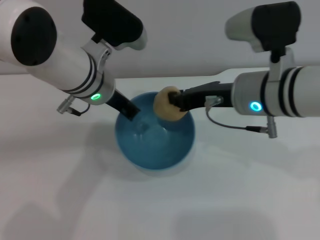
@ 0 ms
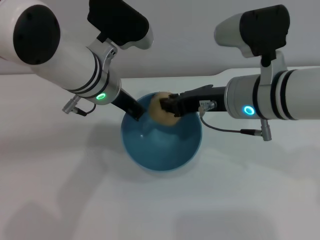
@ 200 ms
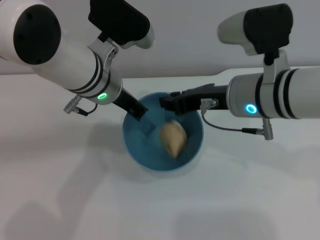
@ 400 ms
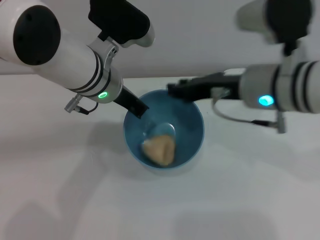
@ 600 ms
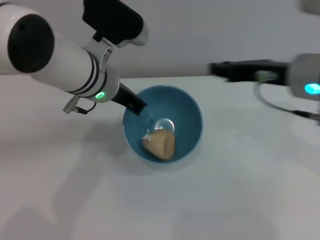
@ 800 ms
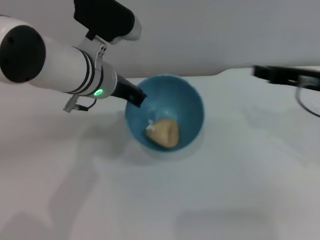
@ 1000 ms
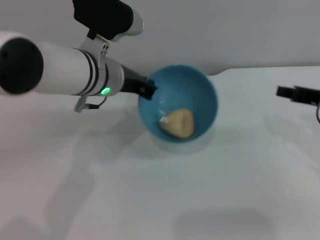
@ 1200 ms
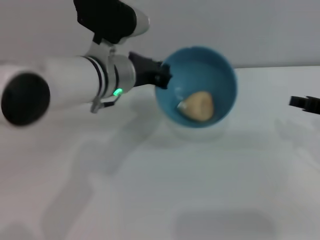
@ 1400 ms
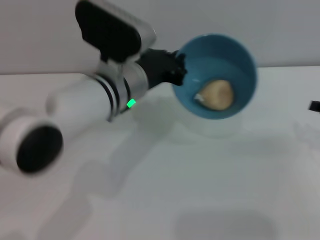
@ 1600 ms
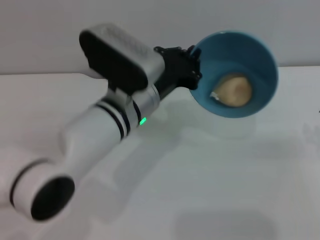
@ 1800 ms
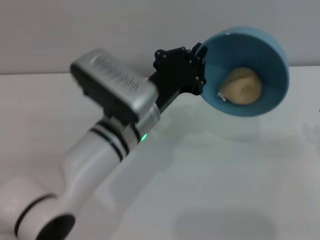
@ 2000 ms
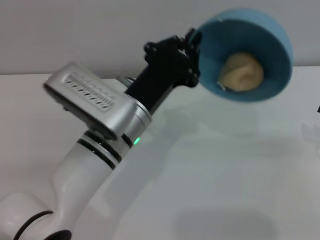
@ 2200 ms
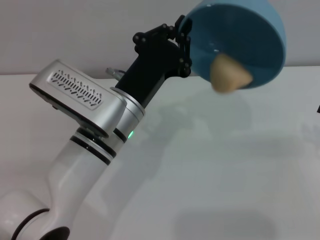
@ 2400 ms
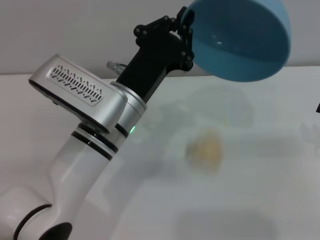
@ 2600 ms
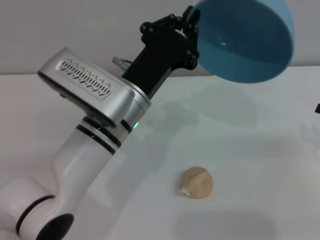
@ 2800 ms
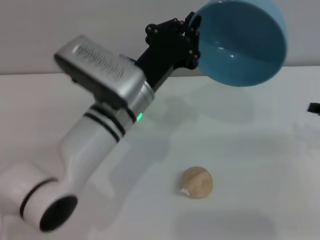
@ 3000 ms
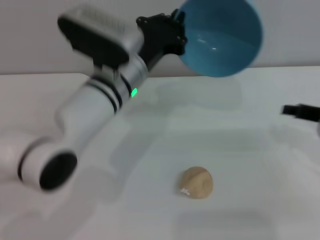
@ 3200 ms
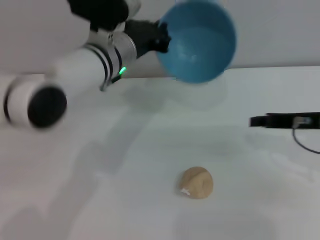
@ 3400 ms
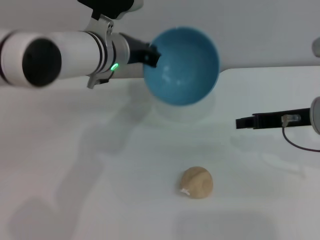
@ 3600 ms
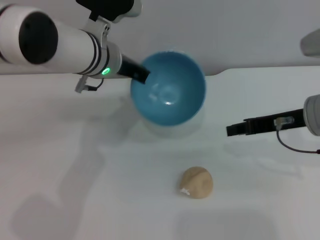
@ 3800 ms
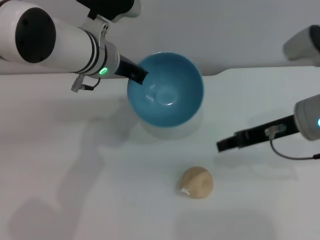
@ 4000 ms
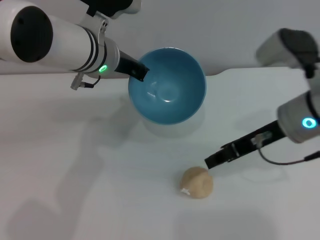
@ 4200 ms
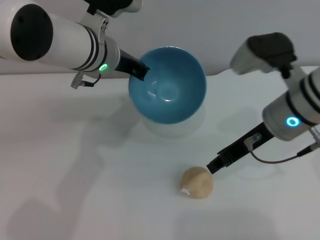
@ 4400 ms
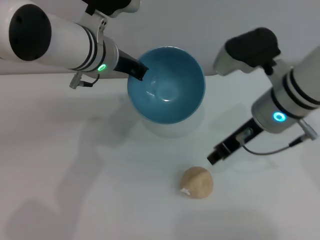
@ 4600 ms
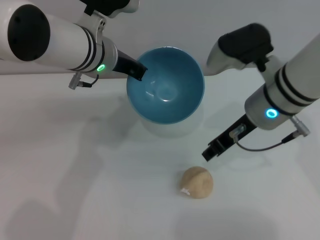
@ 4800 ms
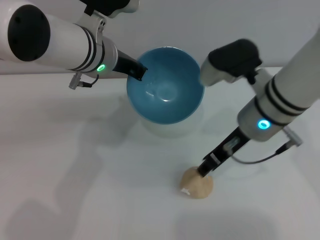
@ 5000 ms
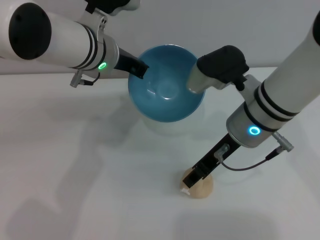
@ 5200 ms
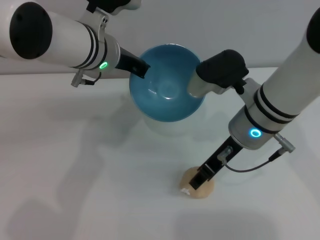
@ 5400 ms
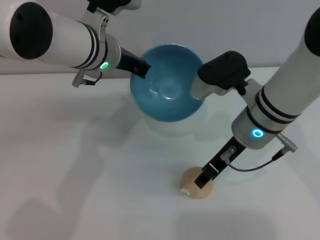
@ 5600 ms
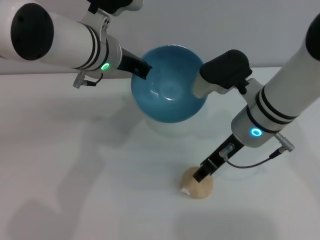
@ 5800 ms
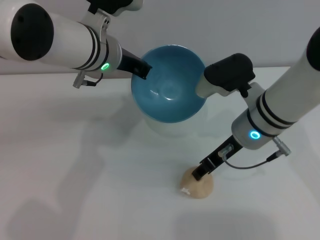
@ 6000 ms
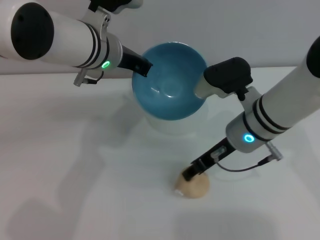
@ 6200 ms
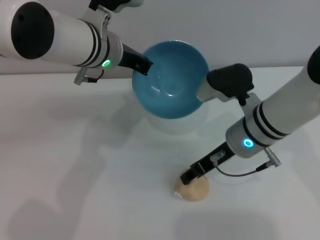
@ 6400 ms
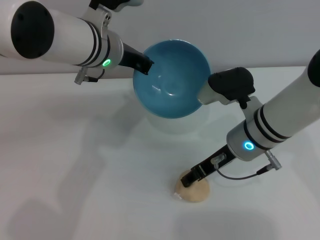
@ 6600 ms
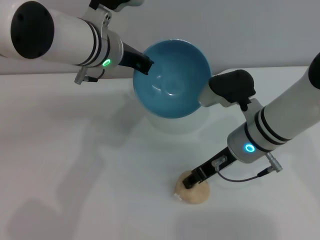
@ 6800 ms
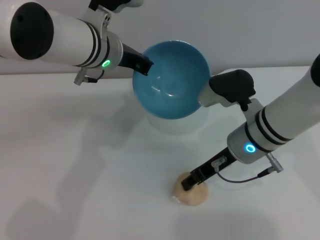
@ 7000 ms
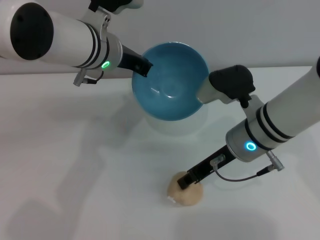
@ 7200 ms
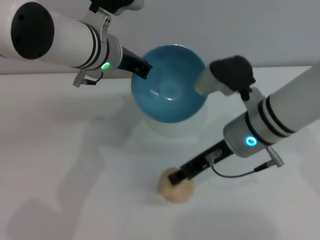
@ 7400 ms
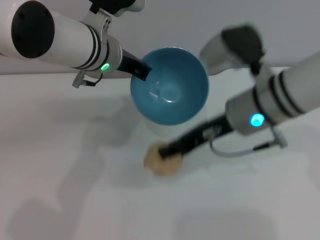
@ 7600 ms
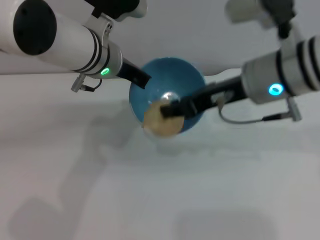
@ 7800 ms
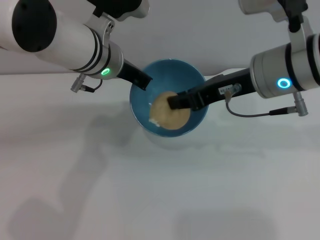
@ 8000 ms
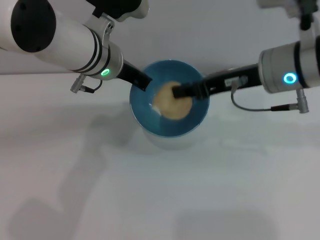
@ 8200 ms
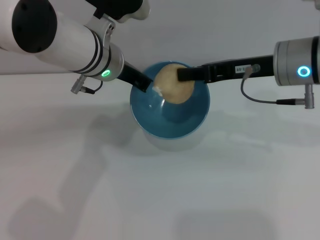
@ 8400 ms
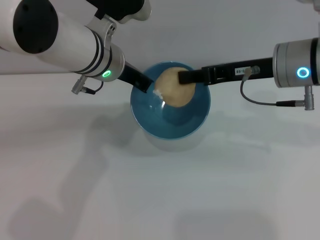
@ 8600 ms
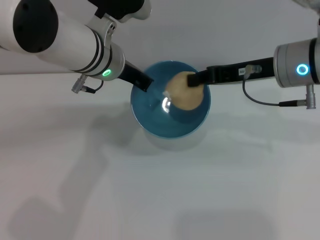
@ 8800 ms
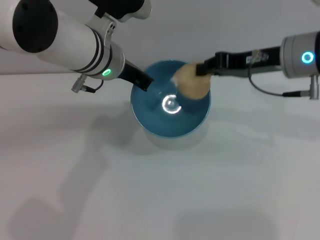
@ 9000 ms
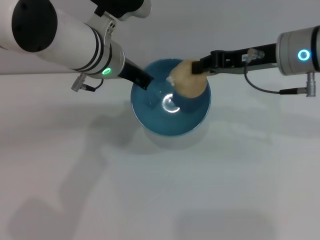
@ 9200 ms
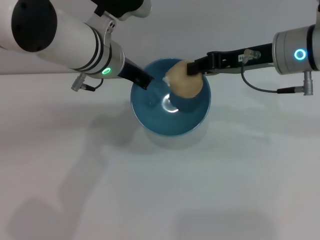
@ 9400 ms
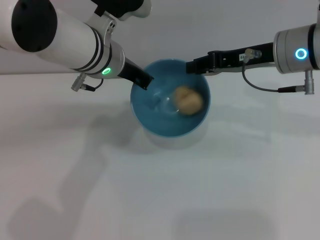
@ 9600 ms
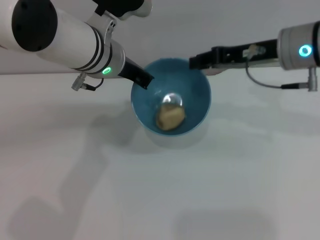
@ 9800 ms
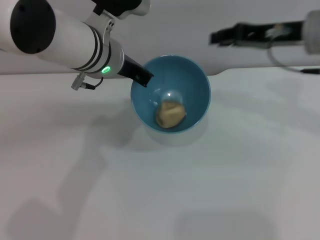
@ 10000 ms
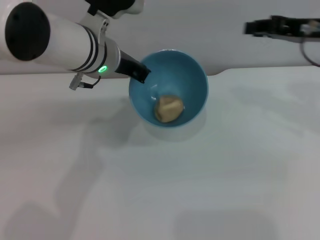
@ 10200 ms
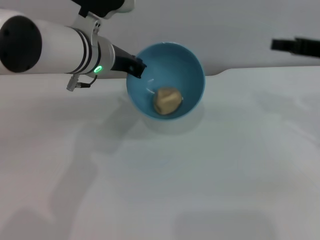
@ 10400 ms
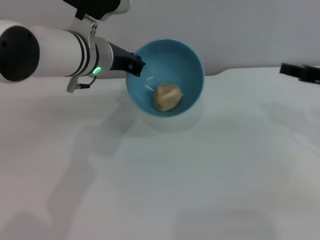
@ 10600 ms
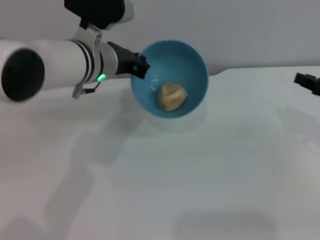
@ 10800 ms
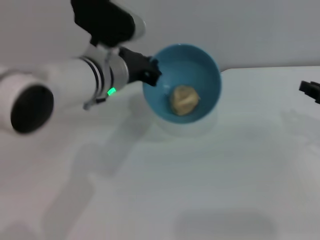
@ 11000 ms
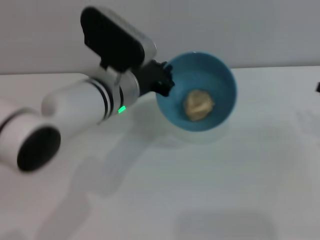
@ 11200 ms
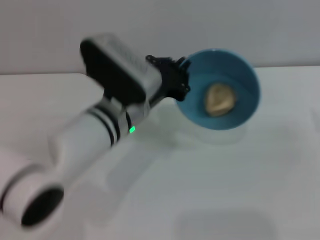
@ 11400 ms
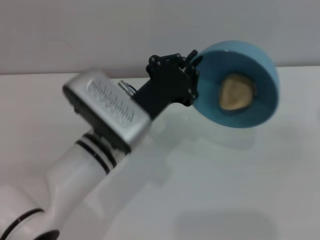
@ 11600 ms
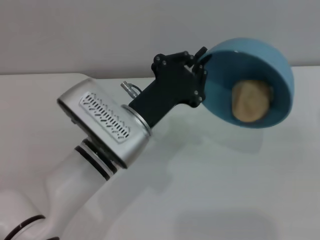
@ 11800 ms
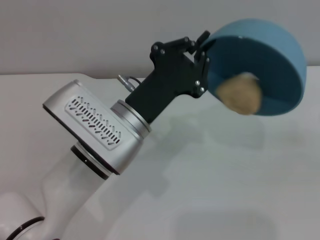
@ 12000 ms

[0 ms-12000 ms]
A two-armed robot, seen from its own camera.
Task of the whole recording: put the egg yolk pastry into the blue bowl and pour it out repeatedly.
Step, 0 ms to 600 ms: Place the egg yolk pastry into the bowl.
Step, 800 ms to 3200 ms: Pour the egg yolk pastry out of bowl.
Step, 3600 ms to 7600 ms: Pick up the egg yolk pastry with the right gripper.
Step, 7800 ms to 10000 ms: Place the egg yolk pastry into the bowl.
0 ms to 1600 ms: The right gripper travels to the right by approximately 20 cm, and opens up.
3000 ms to 4400 ms: The right gripper travels to the left by some 15 cm. The left gripper goes about 10 cm forward and upward.
4400 ms to 6000 ms: The right gripper moves roughly 5 cm, and opens.
6000 ms to 7600 ms: The right gripper travels upward by about 5 cm, and closes up.
7600 ms to 9000 ms: The right gripper shifts about 5 cm to the right, and closes up.
9000 ms to 10400 ms: The right gripper travels to the right by roughly 10 cm, and opens up.
10400 ms to 12000 ms: The left gripper travels backward and downward by some 15 cm; the right gripper goes approximately 15 cm downward, to the right and backward.

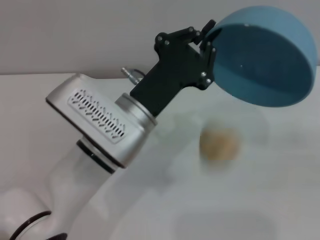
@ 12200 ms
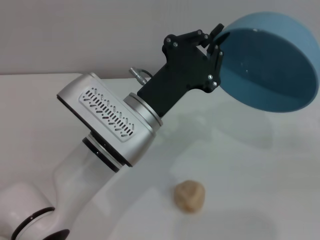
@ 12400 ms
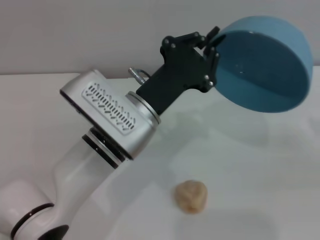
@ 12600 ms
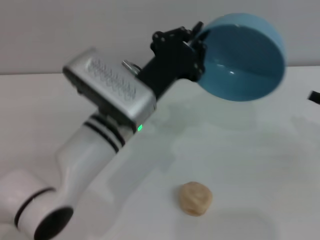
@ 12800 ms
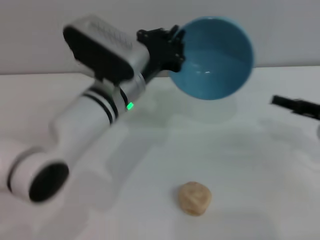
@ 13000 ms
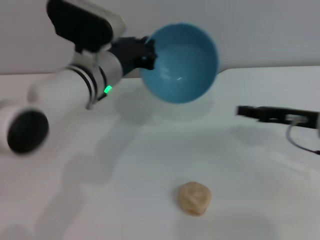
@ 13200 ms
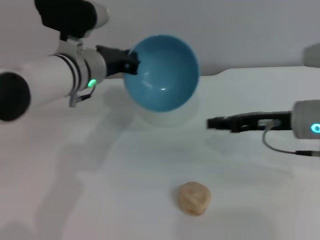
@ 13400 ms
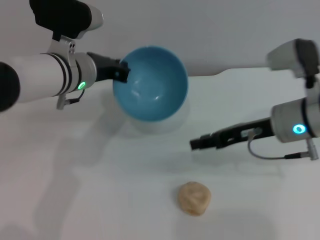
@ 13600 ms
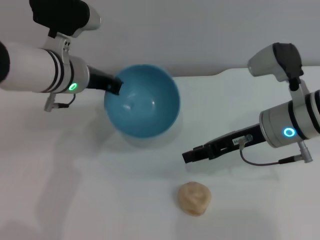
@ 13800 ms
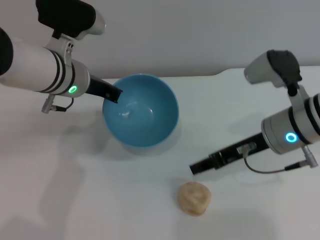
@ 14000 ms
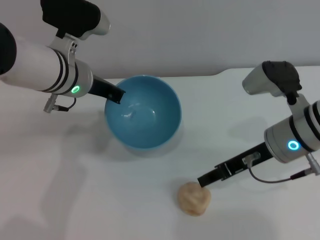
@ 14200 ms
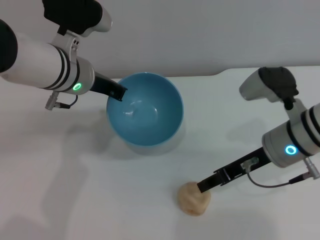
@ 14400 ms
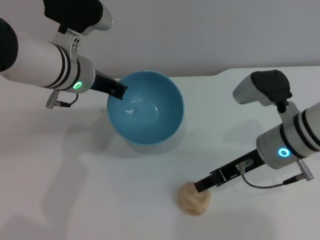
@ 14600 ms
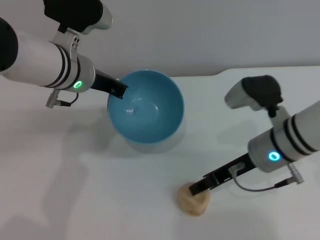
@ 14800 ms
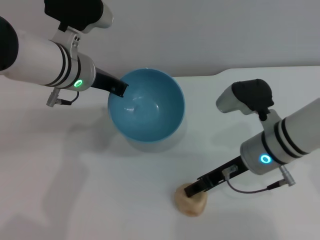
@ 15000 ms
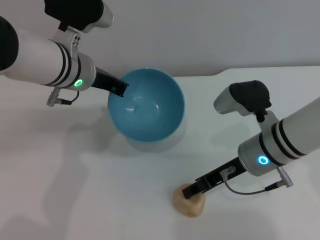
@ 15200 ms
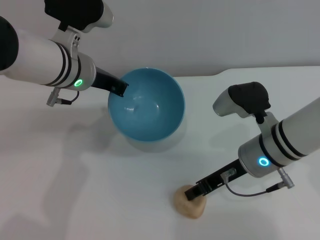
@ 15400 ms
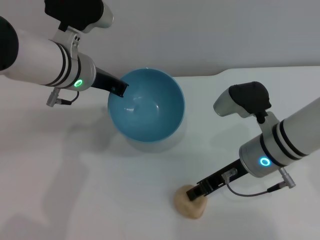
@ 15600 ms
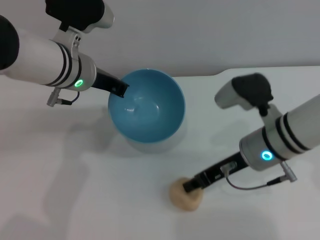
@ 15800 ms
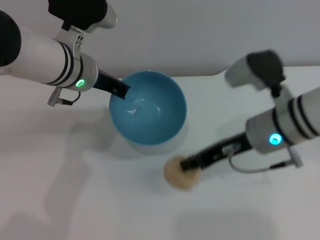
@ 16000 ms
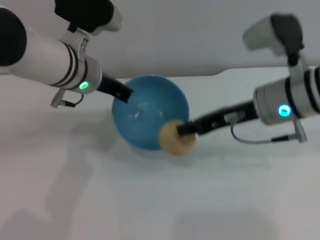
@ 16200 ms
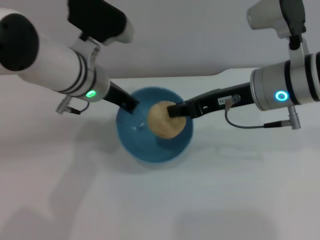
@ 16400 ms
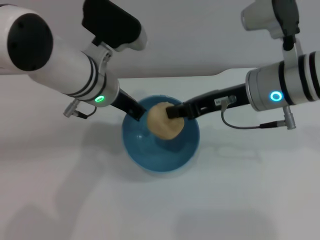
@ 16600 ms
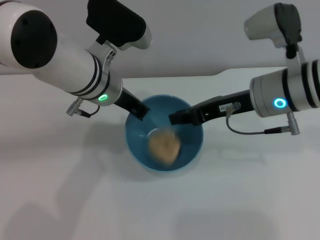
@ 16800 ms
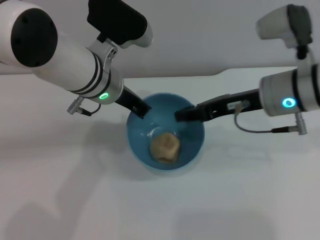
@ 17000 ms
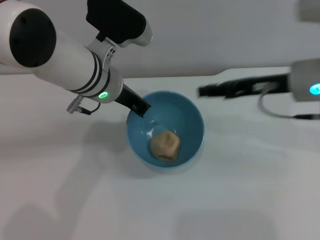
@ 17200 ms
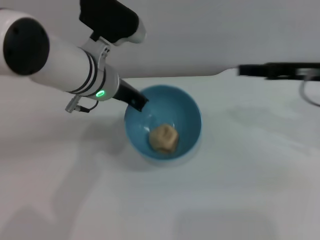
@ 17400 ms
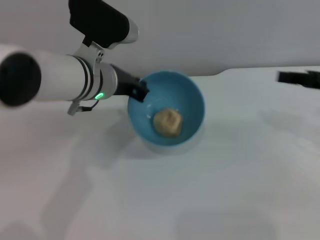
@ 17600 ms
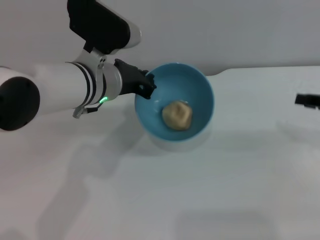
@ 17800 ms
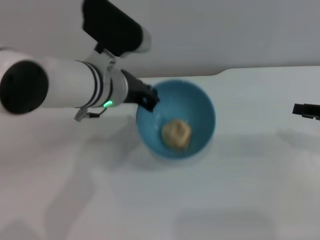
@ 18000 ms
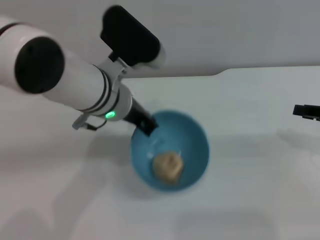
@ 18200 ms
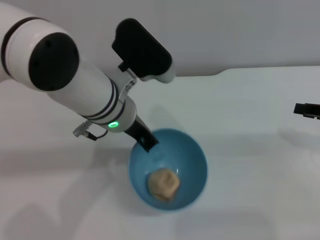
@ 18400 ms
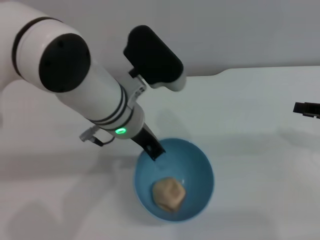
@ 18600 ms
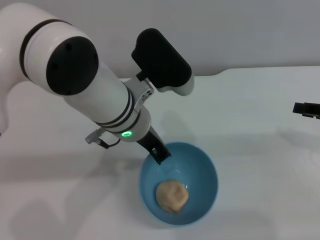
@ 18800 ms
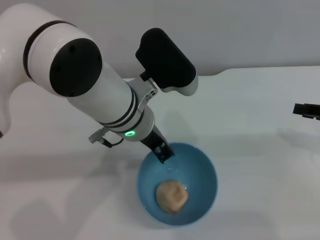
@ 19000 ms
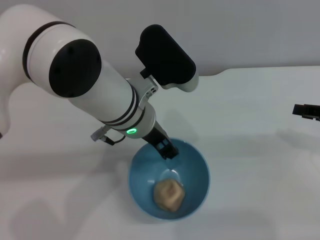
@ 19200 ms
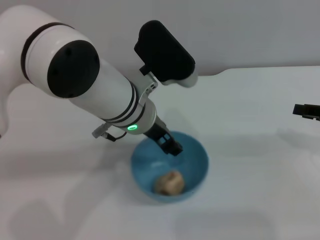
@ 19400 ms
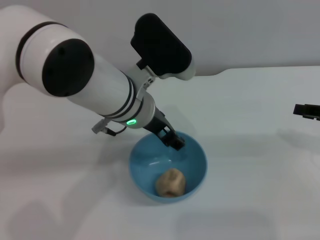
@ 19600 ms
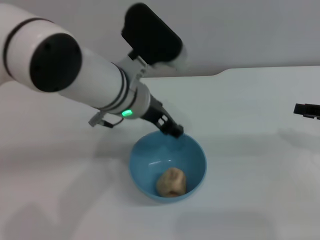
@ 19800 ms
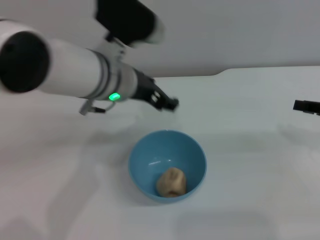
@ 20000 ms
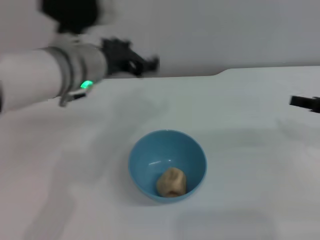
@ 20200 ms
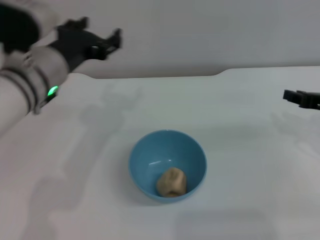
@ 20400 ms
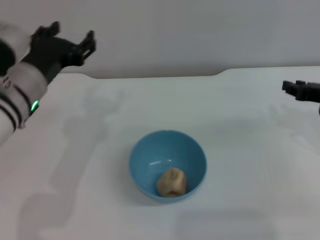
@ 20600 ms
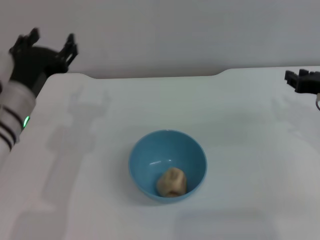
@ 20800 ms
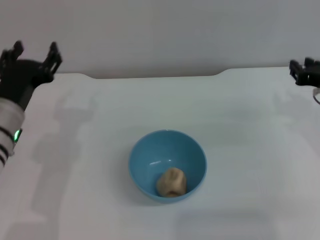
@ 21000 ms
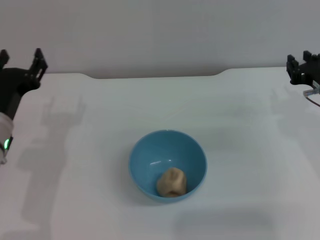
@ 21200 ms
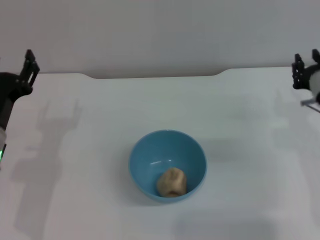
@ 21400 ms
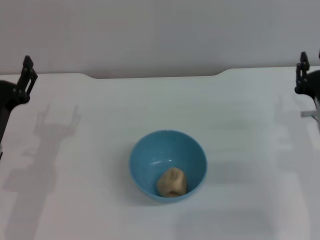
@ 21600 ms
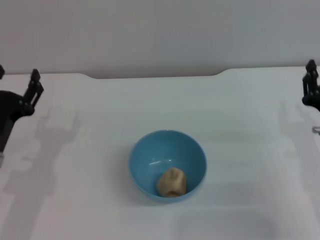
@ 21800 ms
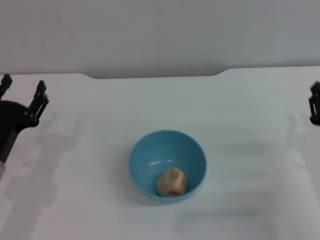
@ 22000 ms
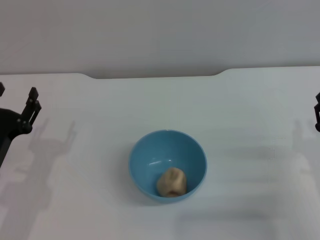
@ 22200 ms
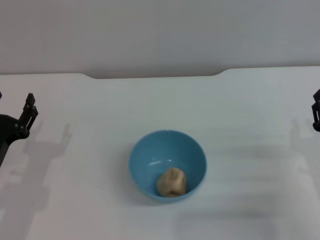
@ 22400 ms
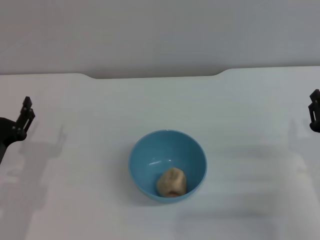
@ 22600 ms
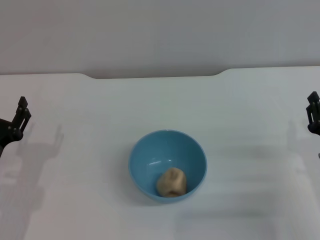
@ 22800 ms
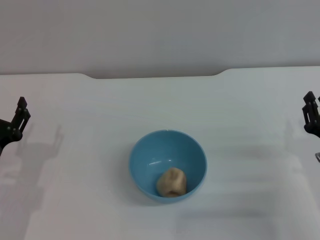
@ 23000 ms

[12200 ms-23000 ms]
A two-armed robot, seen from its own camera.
Task of the whole recording: put the egg yolk pastry into the blue bowl and pour it out repeatedly.
Step, 12600 ms to 16000 ms: Pick up the egg yolk pastry with the right gripper.
Step, 16200 ms to 17000 ms: Place the egg yolk pastry into the bowl.
Step, 17200 ms to 19800 ms: Place the bowl on the table.
12200 ms to 13800 ms: The left gripper heads forward and to the left, covering some 15 cm; the right gripper goes approximately 20 cm to the left.
13800 ms to 15200 ms: The right gripper moves roughly 5 cm.
15200 ms to 16800 ms: The right gripper travels upward by some 10 cm, and closes.
16800 ms to 18400 ms: The right gripper heads to the right, covering roughly 20 cm, and opens.
18400 ms to 20000 ms: The left gripper opens up.
20000 ms to 21400 ms: The left gripper travels to the left, downward and backward by roughly 20 cm, while the right gripper moves to the left, some 10 cm.
21400 ms to 23000 ms: The right gripper shifts about 10 cm backward and downward. The left gripper shifts by approximately 5 cm.
